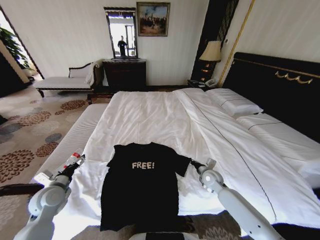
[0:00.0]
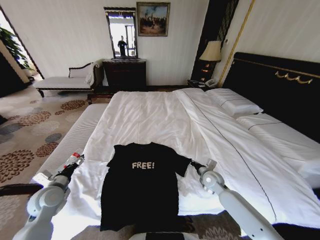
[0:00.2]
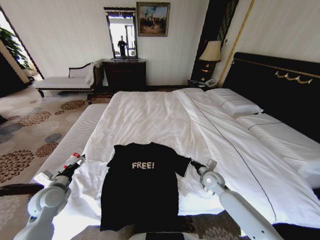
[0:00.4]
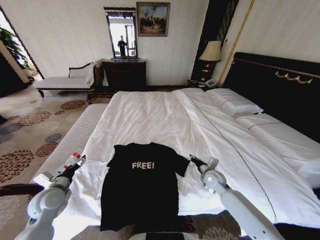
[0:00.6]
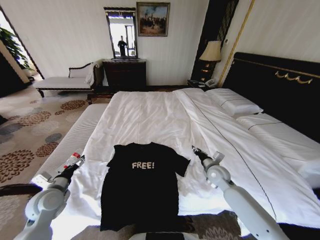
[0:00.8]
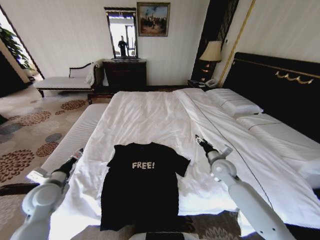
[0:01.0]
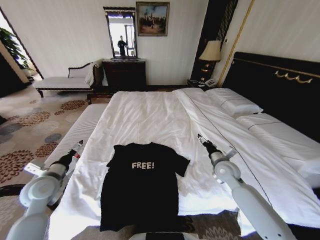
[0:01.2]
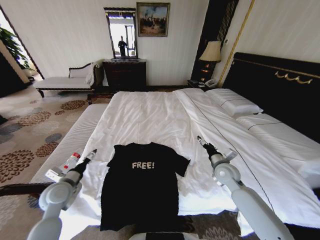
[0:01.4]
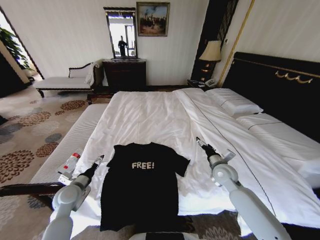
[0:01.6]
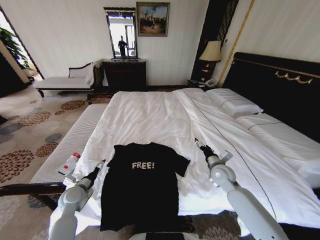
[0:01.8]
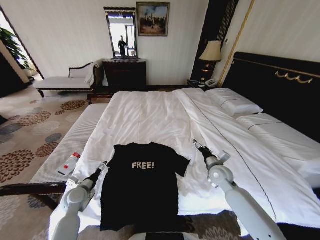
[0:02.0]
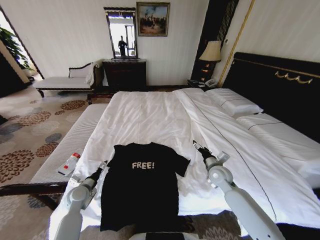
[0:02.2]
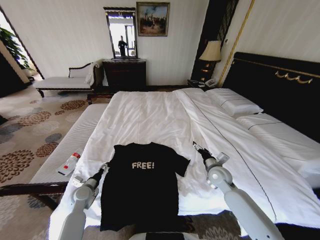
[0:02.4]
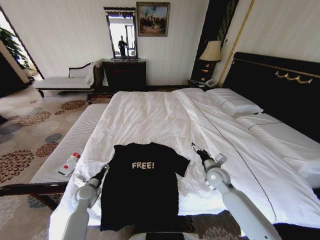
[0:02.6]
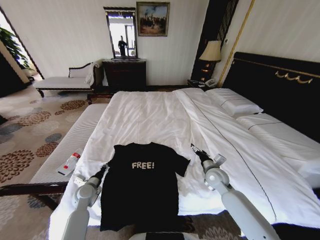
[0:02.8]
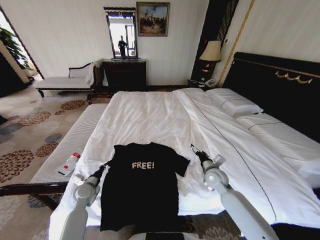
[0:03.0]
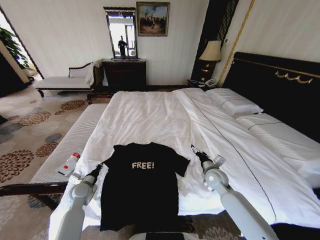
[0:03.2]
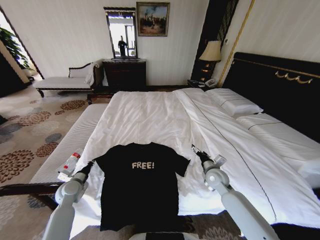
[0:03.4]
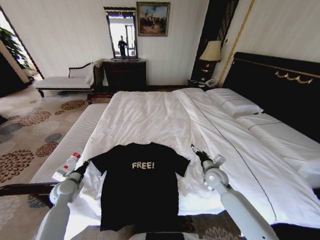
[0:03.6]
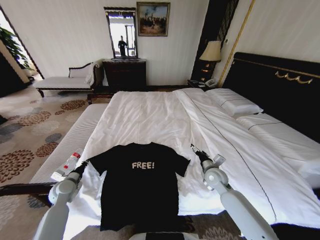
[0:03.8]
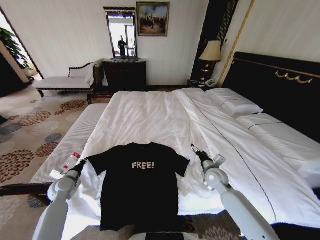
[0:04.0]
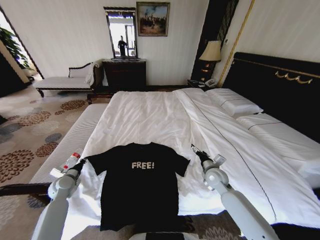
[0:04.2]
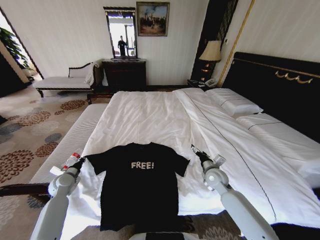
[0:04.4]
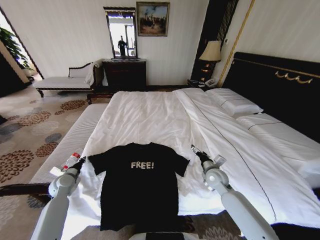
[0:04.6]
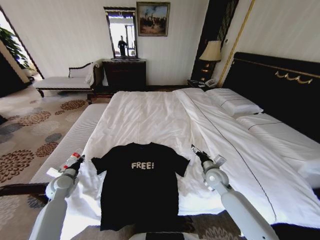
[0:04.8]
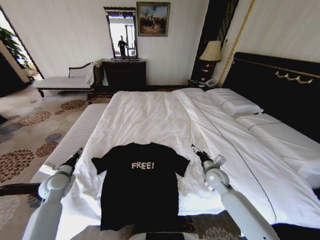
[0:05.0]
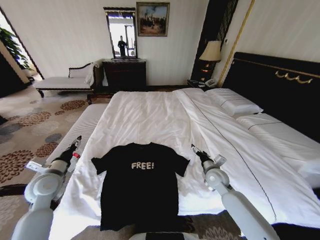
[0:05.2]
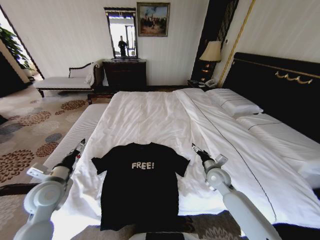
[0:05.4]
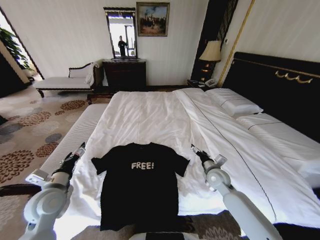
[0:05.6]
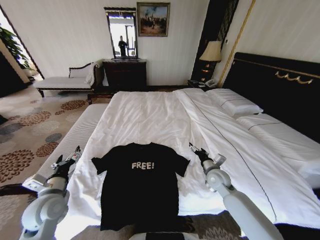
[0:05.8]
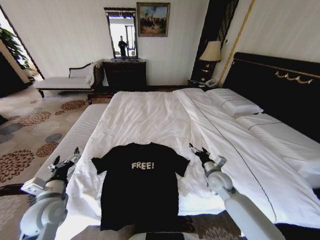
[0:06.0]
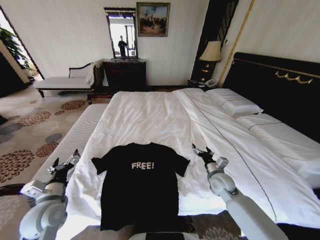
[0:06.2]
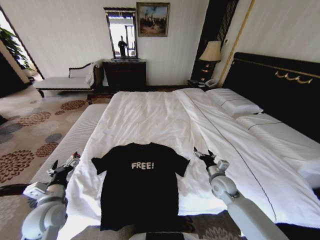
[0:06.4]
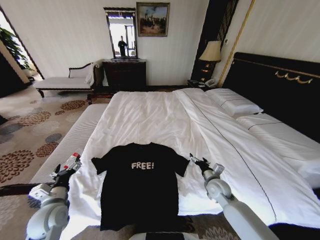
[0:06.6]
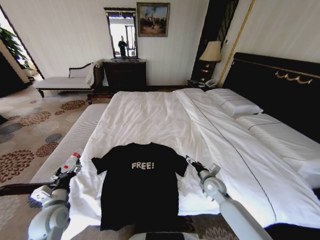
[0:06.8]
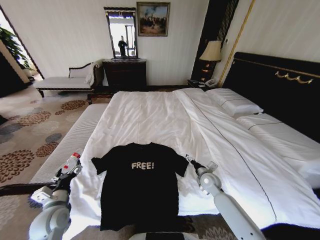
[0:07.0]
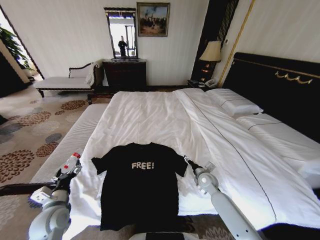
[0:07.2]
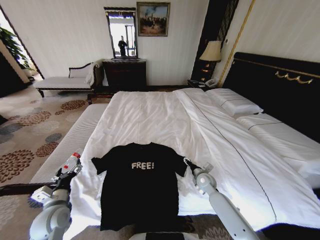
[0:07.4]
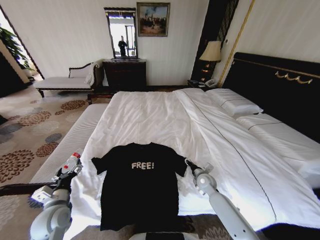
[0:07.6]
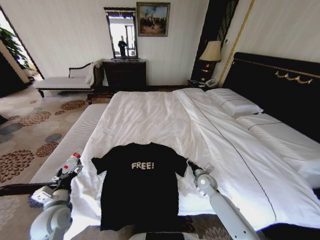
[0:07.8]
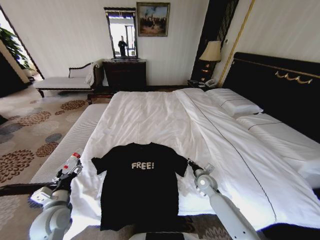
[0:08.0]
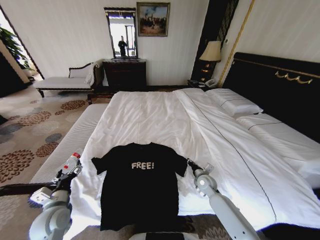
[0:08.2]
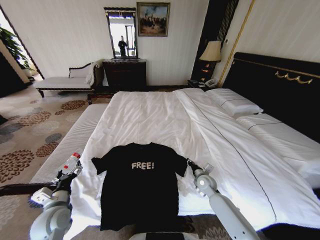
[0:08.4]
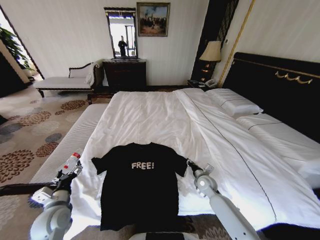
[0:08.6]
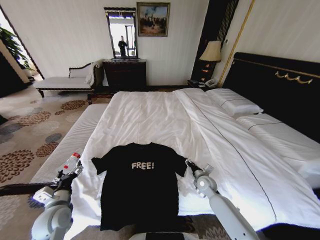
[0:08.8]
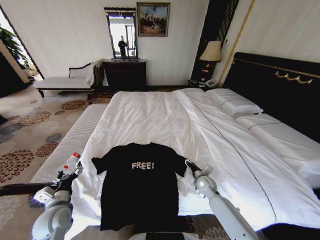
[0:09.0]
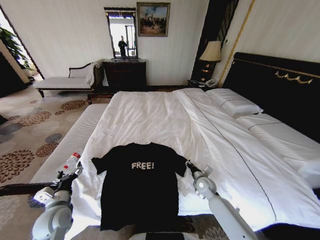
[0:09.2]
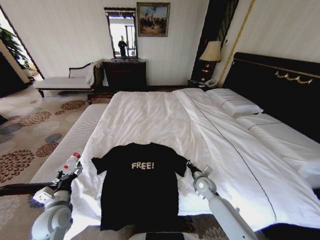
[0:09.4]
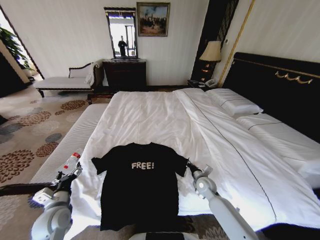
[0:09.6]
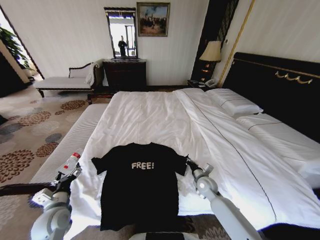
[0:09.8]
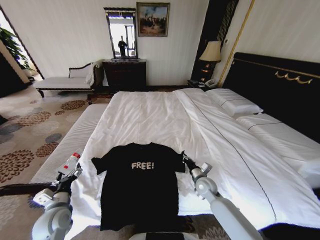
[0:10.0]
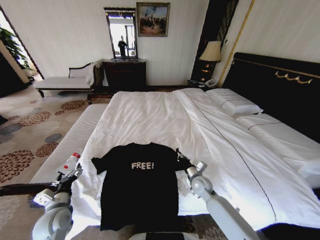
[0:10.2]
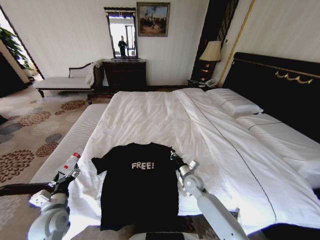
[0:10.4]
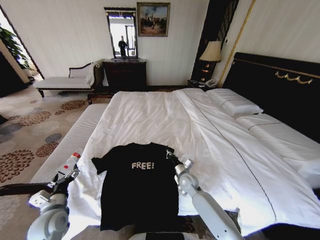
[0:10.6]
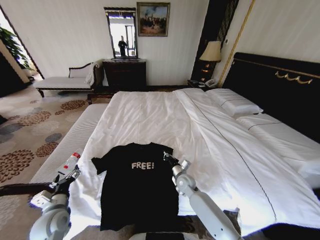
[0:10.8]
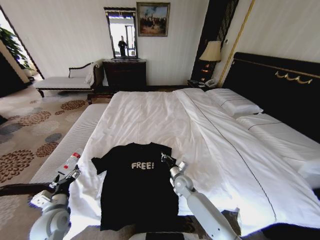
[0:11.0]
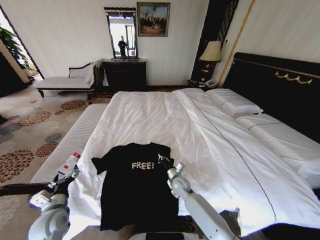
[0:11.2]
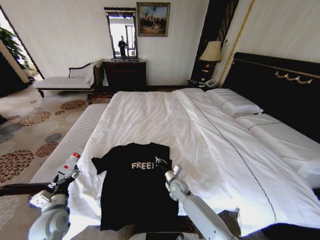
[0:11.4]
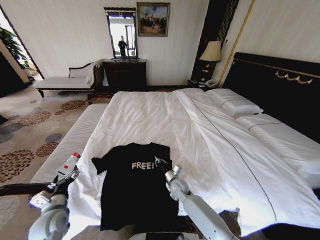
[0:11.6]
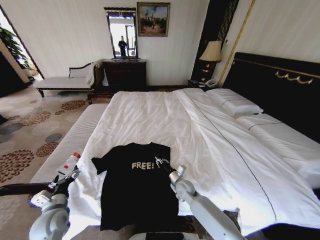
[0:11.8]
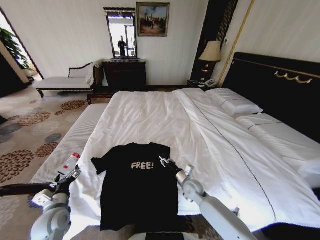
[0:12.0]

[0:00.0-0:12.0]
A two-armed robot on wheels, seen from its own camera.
Task of the whole recording: Fold the clothes on the bed.
0:00.0 to 0:01.6: The right gripper heads upward, covering approximately 10 cm, and opens; the left gripper reaches approximately 5 cm upward, then returns.
0:01.6 to 0:03.0: The left gripper moves downward, about 10 cm, and closes.
0:03.0 to 0:04.4: The left gripper moves to the left, approximately 10 cm.
0:04.4 to 0:06.0: The left gripper travels backward, upward and to the right by roughly 20 cm, and opens.
0:06.0 to 0:07.6: The right gripper shifts roughly 10 cm downward, and closes up.
0:07.6 to 0:09.0: There are only small adjustments of the grippers.
0:09.0 to 0:10.4: The right gripper moves to the left, roughly 5 cm, and closes its fingers.
0:10.4 to 0:12.0: The right gripper opens.

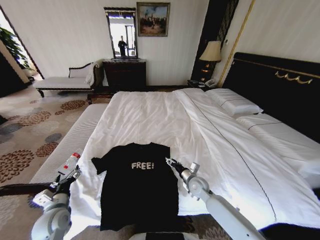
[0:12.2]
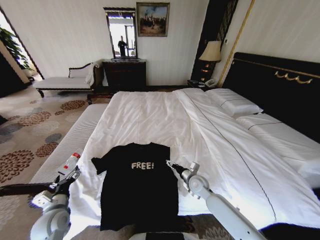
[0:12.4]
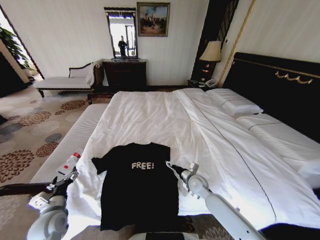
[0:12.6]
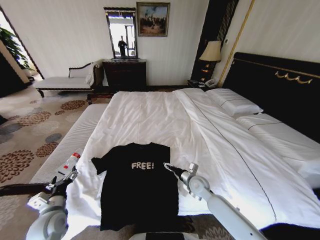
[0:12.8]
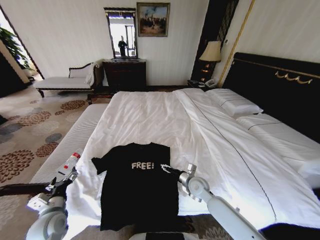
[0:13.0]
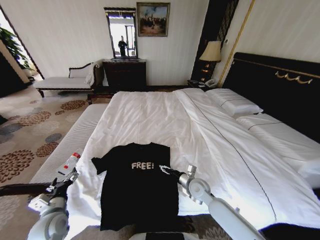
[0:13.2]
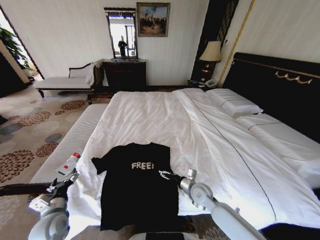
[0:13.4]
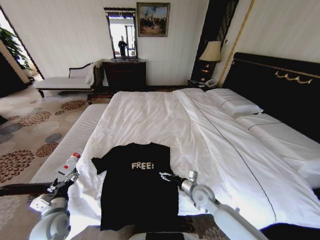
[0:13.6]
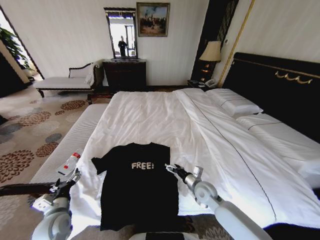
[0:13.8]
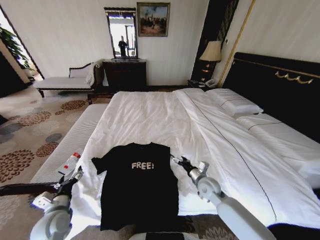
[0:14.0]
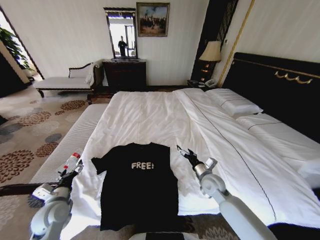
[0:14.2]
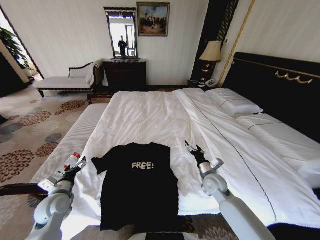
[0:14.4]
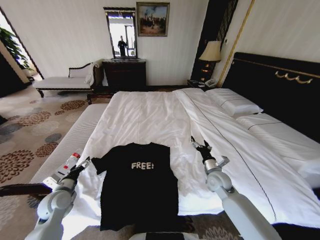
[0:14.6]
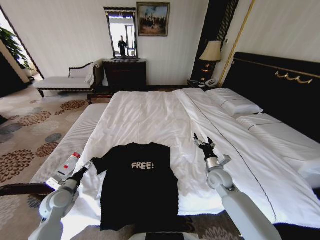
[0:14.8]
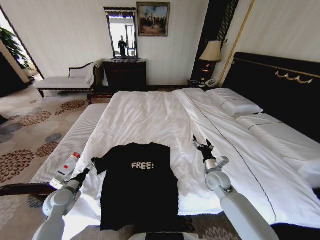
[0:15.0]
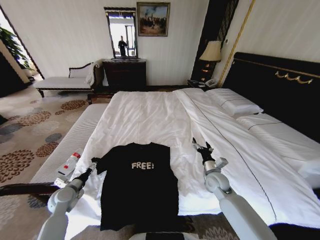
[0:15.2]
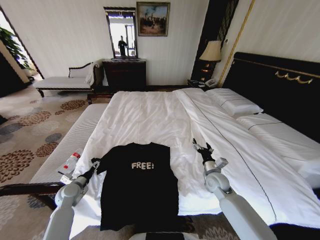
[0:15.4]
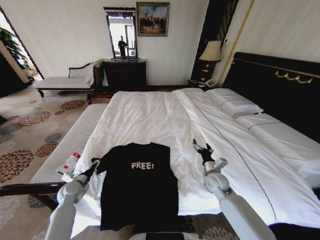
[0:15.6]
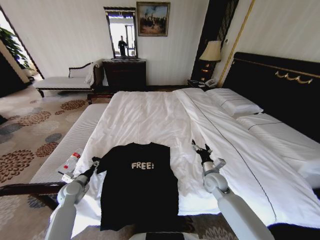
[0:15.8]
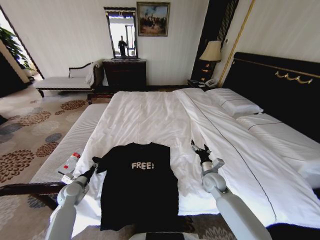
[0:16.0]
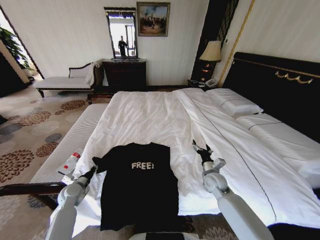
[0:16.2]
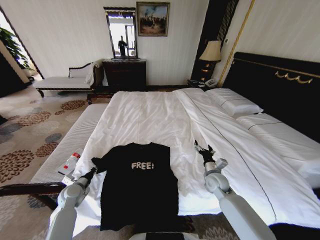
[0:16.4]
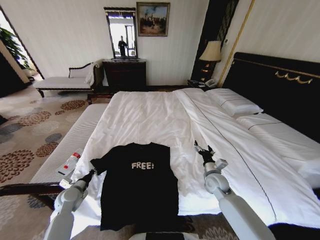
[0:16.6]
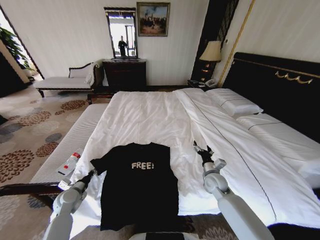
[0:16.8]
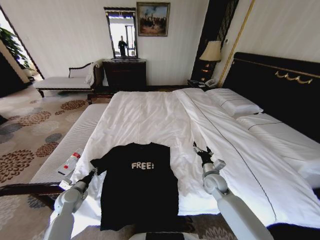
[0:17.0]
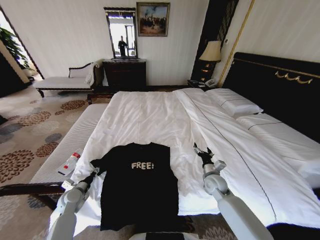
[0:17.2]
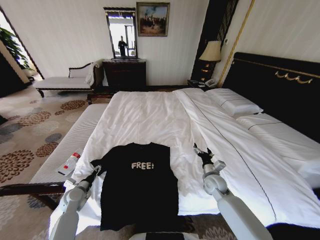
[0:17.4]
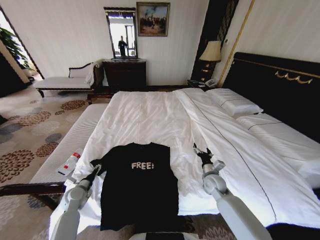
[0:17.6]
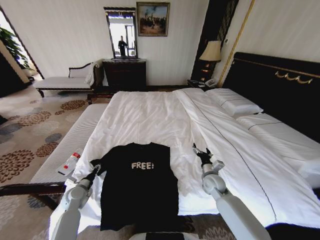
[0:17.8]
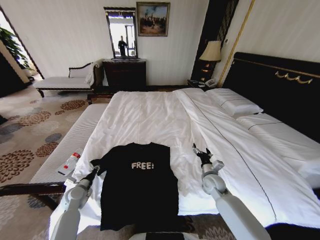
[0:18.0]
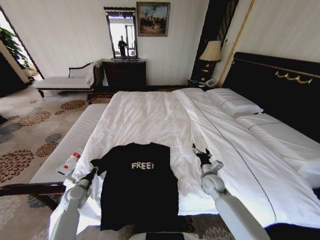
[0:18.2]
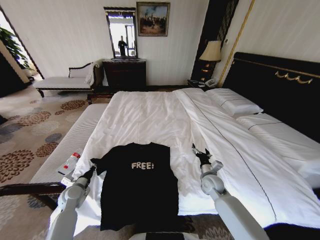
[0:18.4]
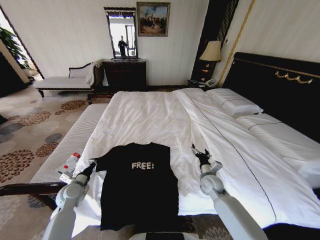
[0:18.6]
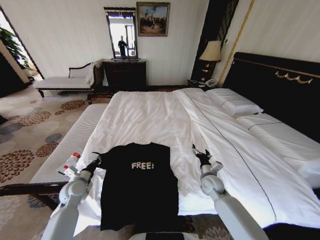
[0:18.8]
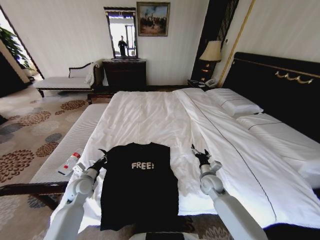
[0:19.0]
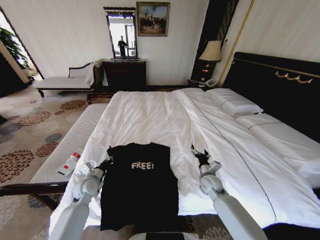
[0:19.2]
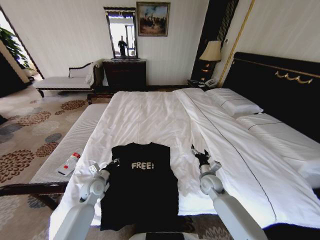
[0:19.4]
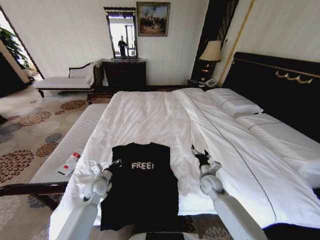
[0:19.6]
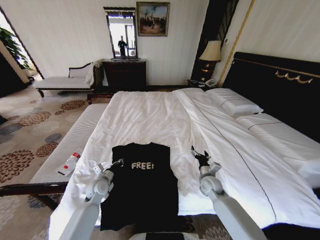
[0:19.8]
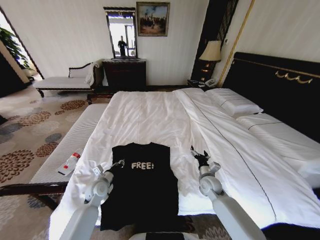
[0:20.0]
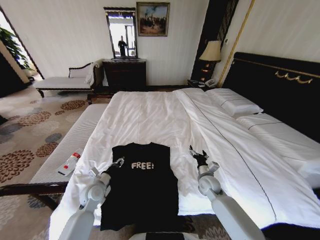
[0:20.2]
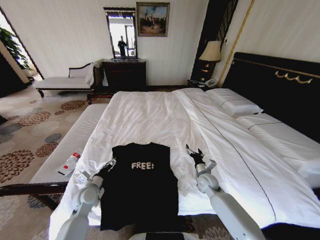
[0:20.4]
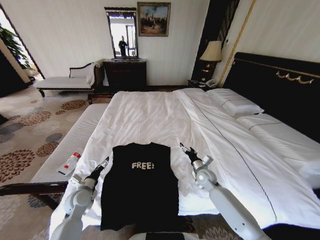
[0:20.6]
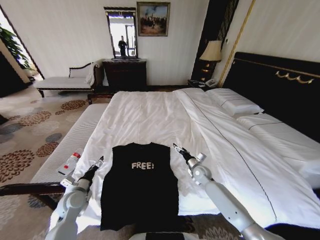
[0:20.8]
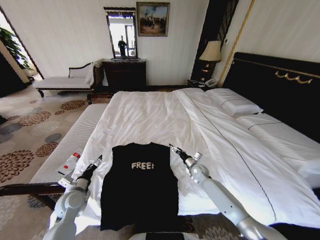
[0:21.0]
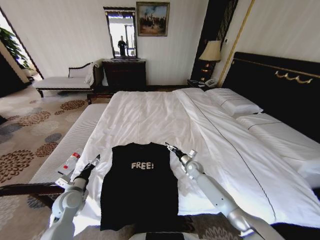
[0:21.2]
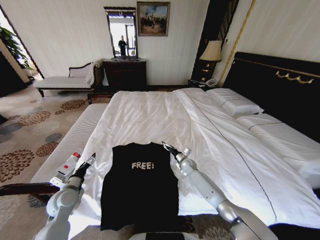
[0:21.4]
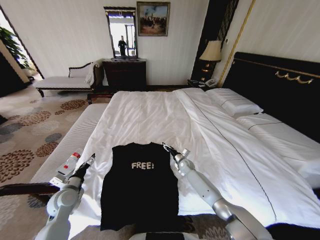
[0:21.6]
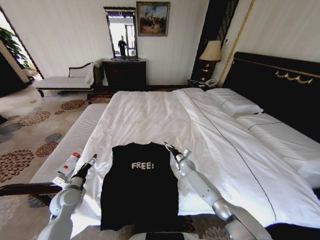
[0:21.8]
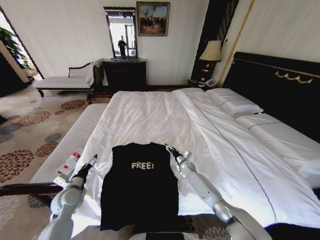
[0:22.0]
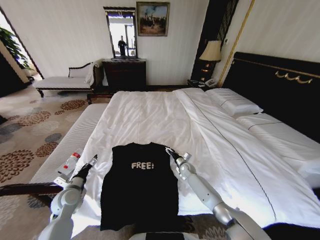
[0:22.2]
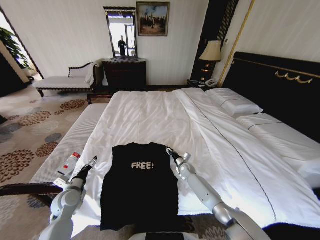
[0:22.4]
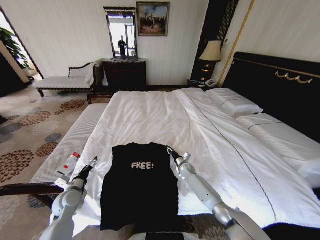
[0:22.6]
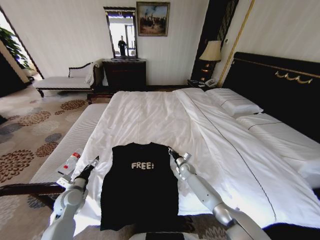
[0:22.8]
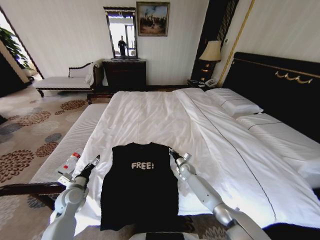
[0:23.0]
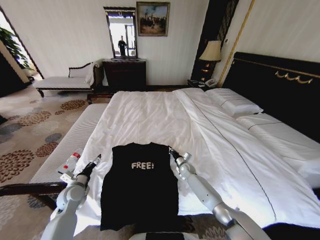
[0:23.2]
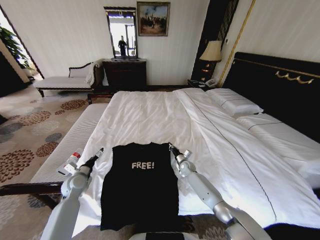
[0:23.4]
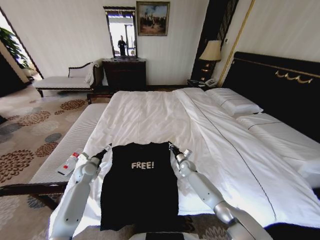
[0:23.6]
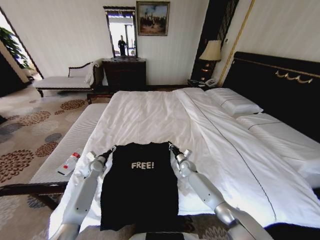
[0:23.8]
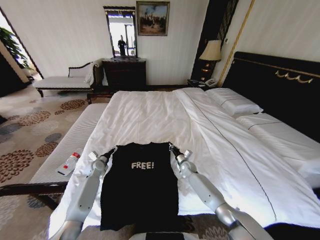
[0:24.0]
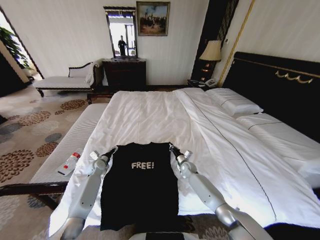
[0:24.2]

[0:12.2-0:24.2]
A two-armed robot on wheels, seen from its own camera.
Task of the whole recording: Fold the clothes on the bed.
0:12.2 to 0:13.8: The grippers make only small movements.
0:13.8 to 0:15.2: The left gripper travels forward by approximately 10 cm. The right gripper goes approximately 5 cm to the right.
0:15.2 to 0:16.6: The left gripper closes its fingers.
0:16.6 to 0:18.2: The left gripper opens, then closes again.
0:18.2 to 0:19.8: The left gripper is displaced to the right by about 10 cm.
0:19.8 to 0:21.2: The left gripper heads to the left and backward, covering roughly 10 cm, and opens its fingers, while the right gripper moves forward, some 10 cm.
0:21.2 to 0:22.6: The right gripper shifts by some 5 cm, and closes up.
0:22.6 to 0:24.2: The left gripper is displaced forward by roughly 20 cm. The right gripper closes.
